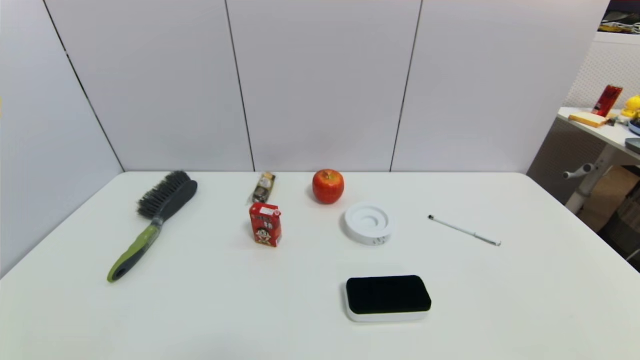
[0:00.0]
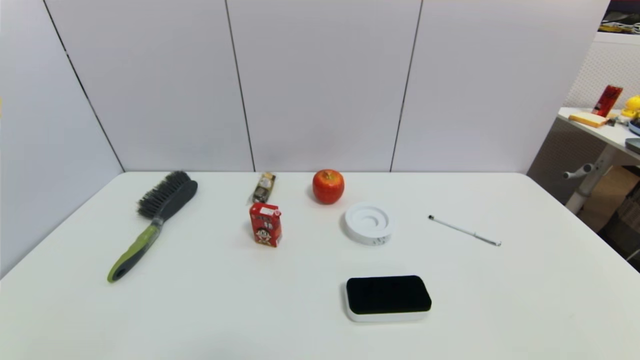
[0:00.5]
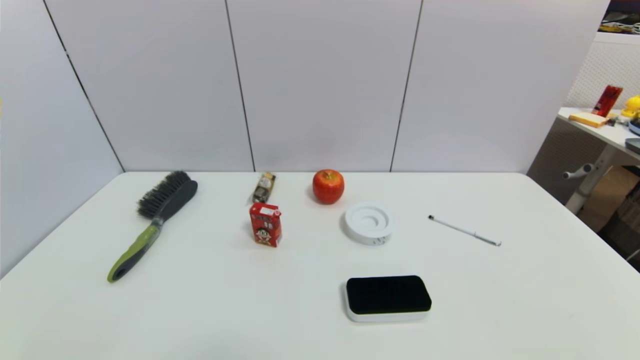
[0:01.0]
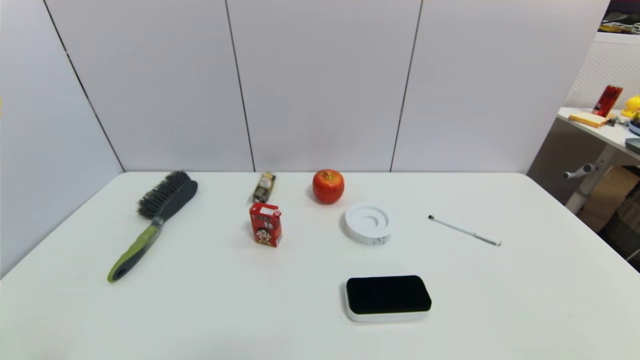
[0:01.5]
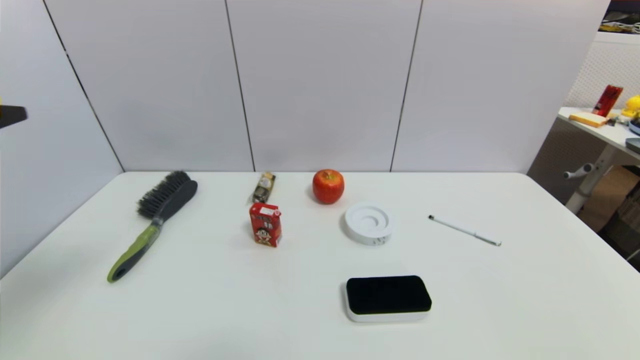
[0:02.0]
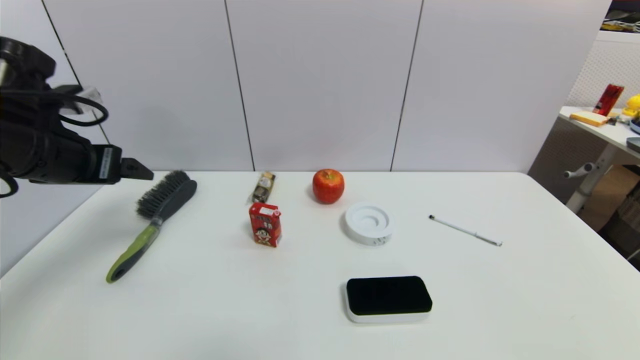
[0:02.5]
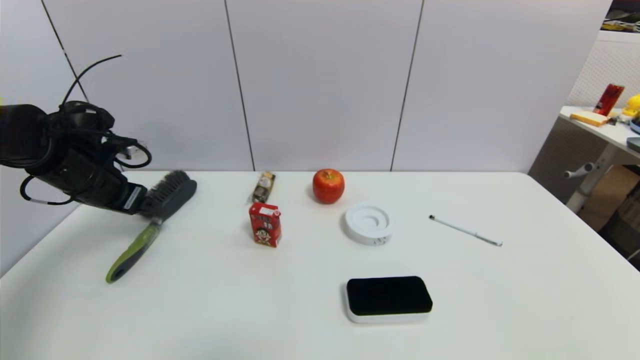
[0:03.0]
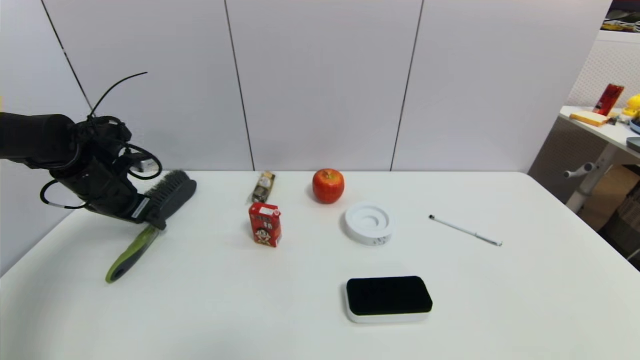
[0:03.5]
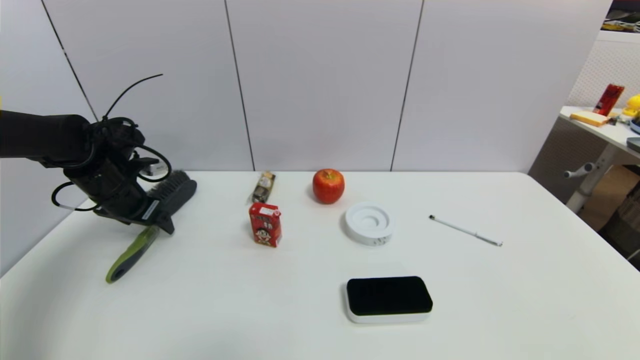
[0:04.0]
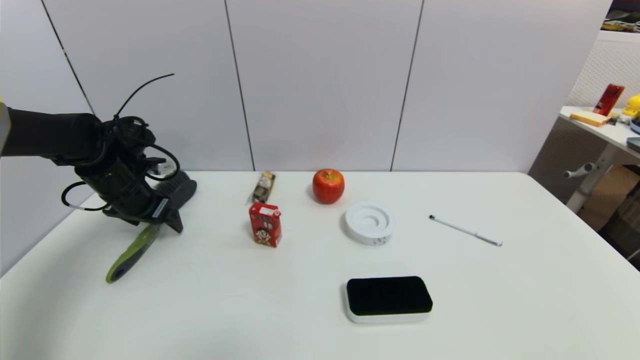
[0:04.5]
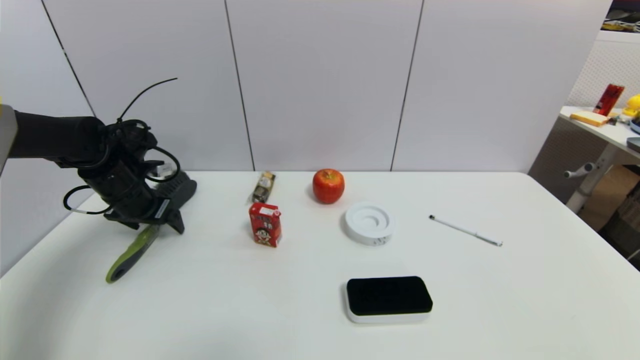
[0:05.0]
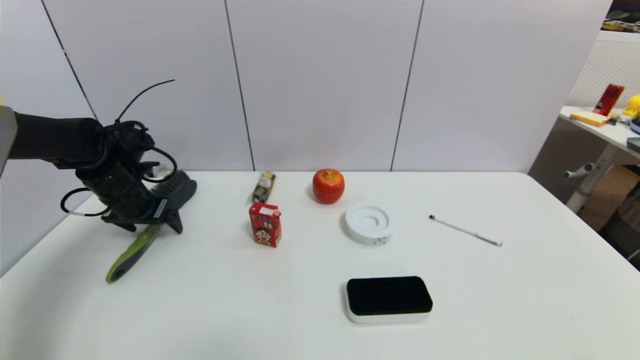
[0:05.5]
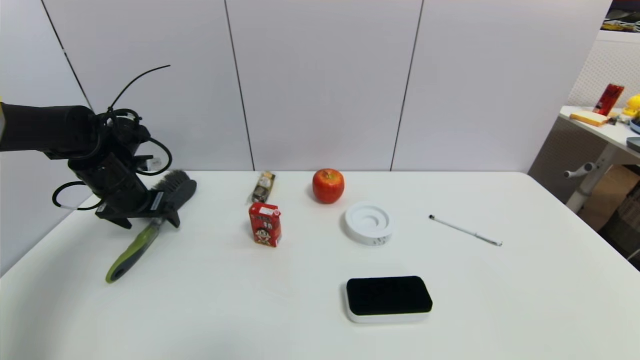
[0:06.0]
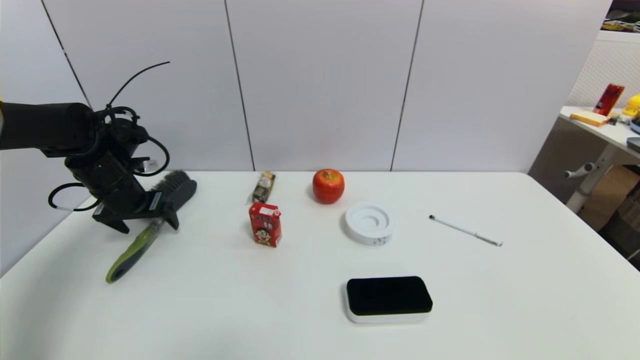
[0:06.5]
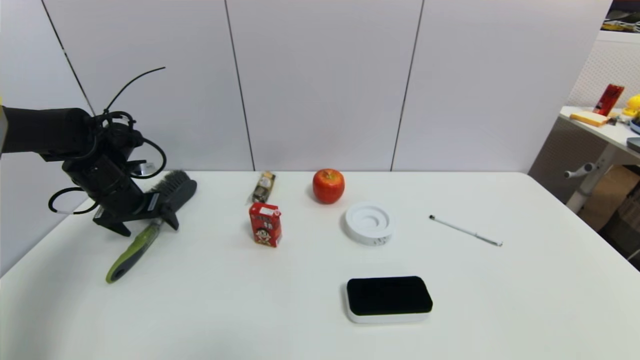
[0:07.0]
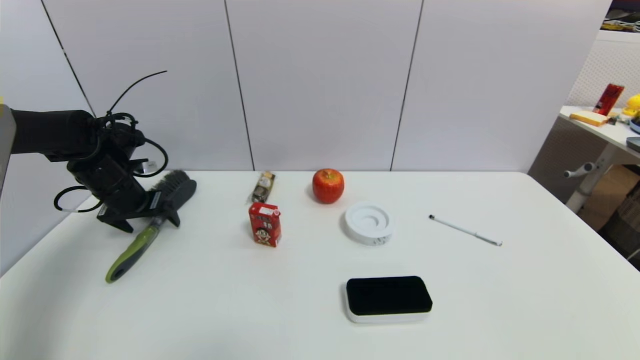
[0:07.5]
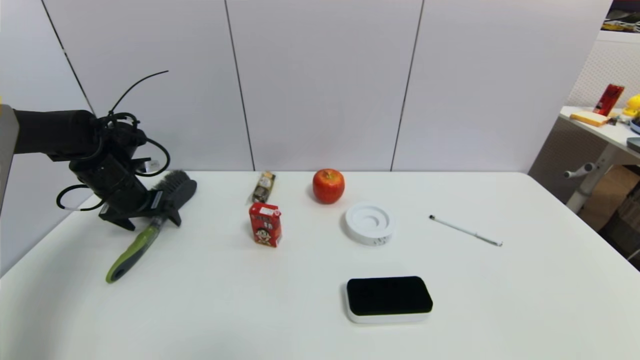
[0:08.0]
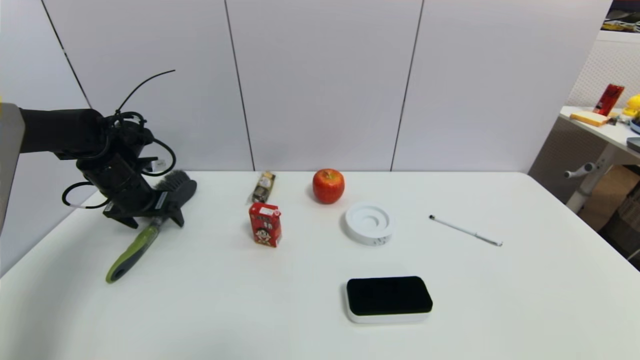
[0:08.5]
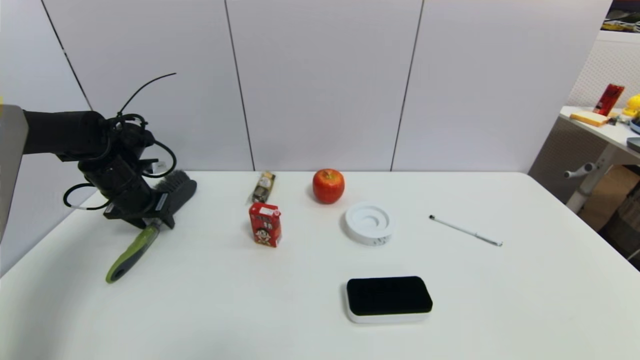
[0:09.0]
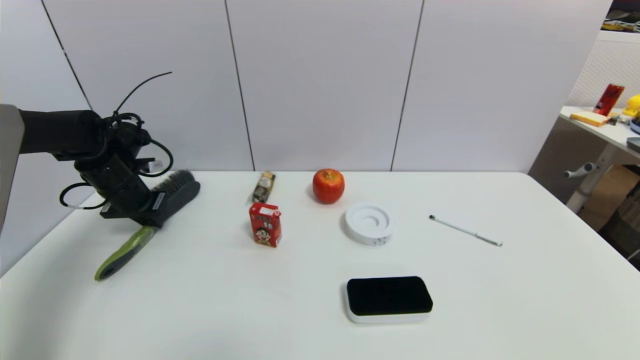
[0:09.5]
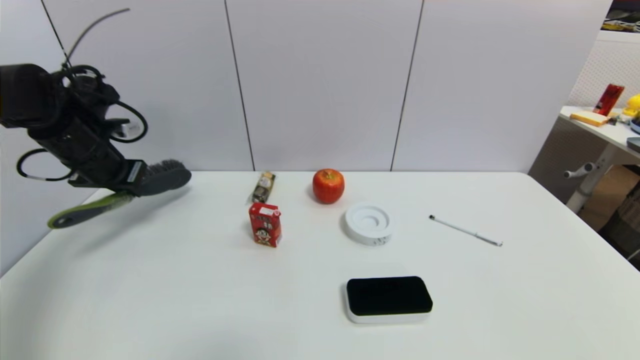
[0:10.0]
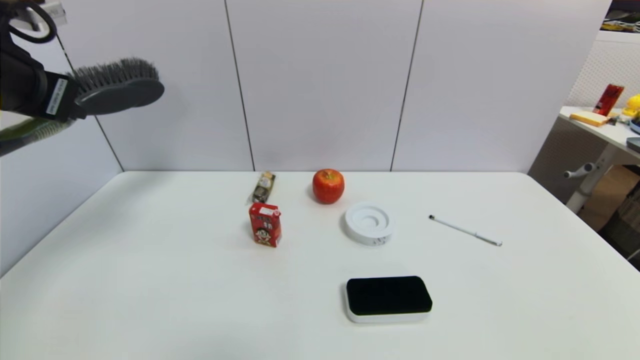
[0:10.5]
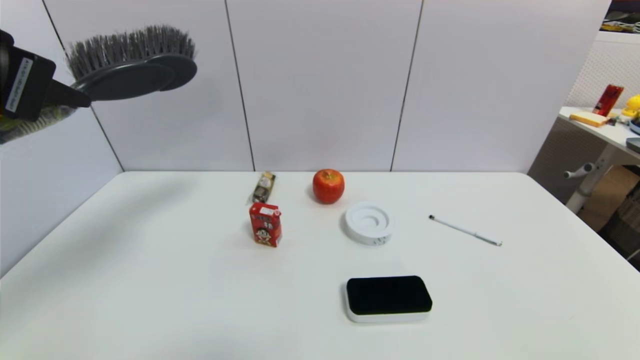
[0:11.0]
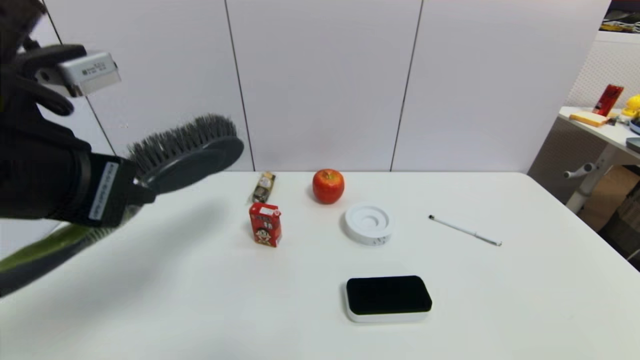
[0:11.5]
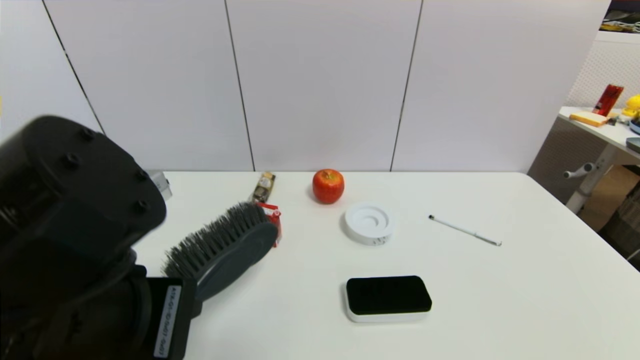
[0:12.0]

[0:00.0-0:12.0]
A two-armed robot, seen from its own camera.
Task of the whole recording: put the brush in the designated position.
Step, 0:00.0 to 0:09.5: Grasp the brush with left gripper.
0:00.0 to 0:02.0: The left gripper travels upward and forward by approximately 30 cm.
0:02.0 to 0:04.0: The left gripper travels forward and downward by approximately 30 cm.
0:04.0 to 0:08.0: The grippers make only small movements.
0:08.0 to 0:10.0: The left gripper is displaced upward by approximately 10 cm, and closes its fingers.
0:10.0 to 0:12.0: The left gripper is displaced backward and to the right by approximately 35 cm.

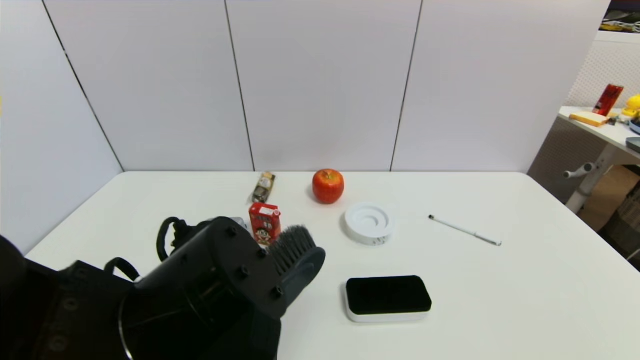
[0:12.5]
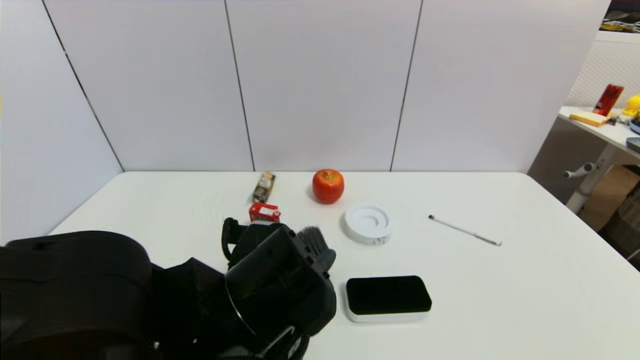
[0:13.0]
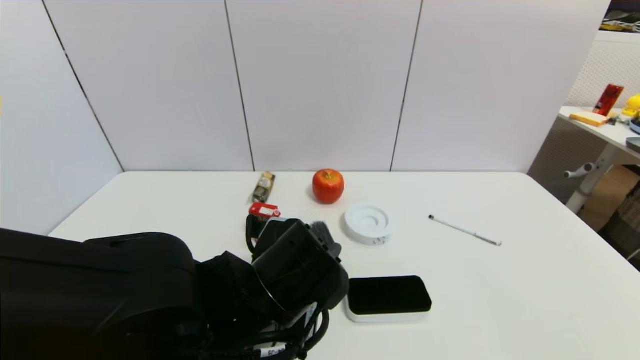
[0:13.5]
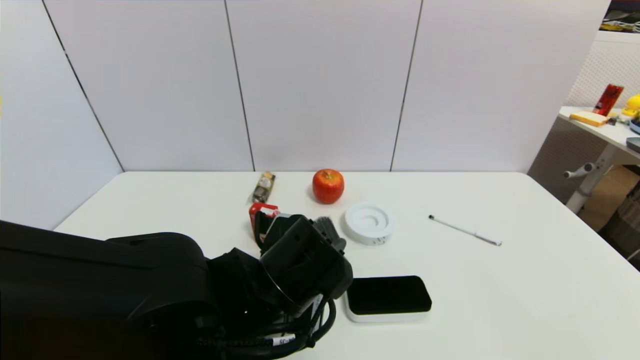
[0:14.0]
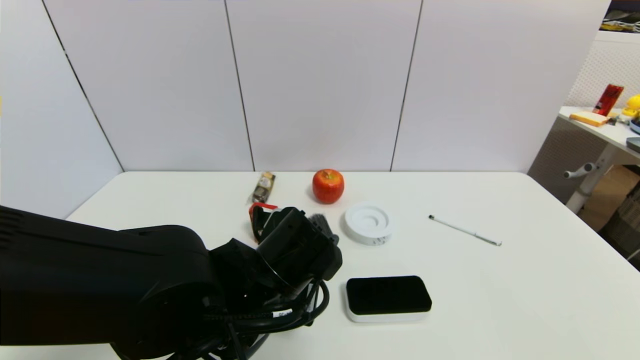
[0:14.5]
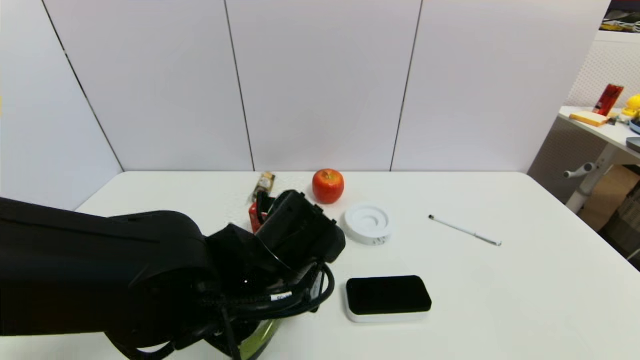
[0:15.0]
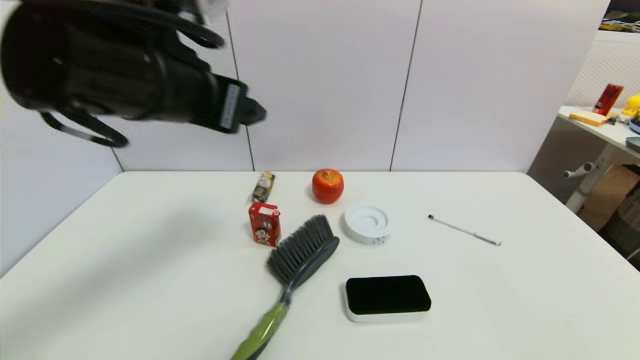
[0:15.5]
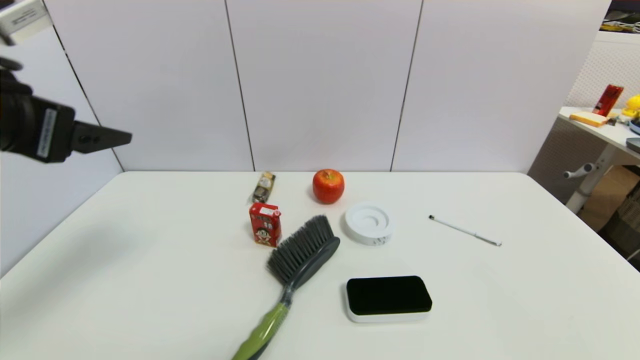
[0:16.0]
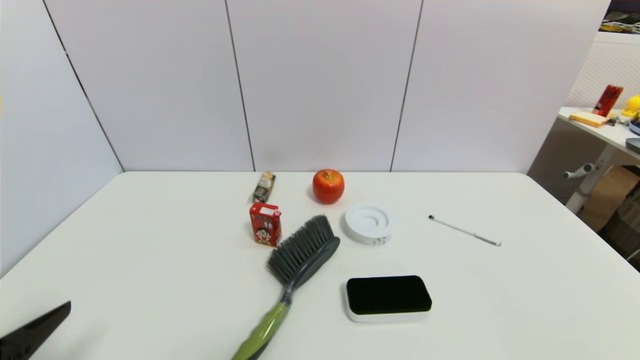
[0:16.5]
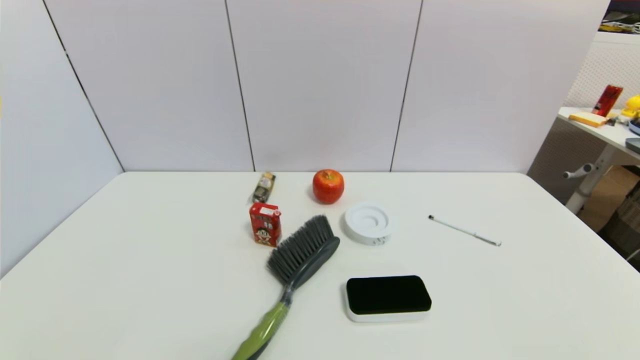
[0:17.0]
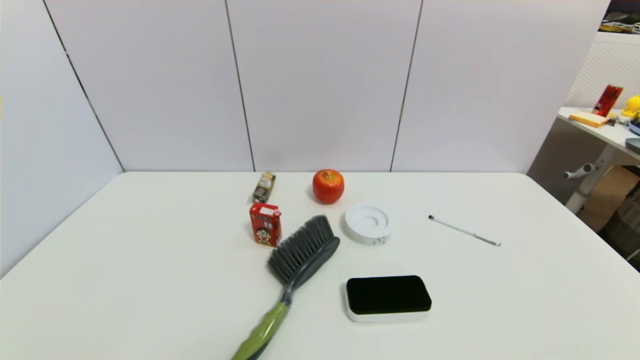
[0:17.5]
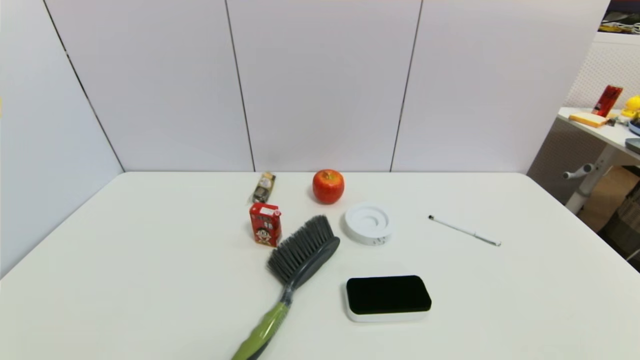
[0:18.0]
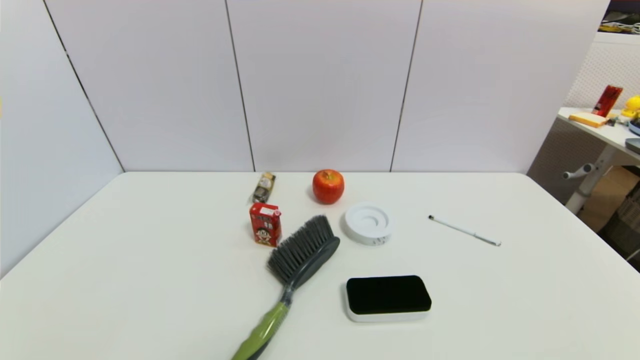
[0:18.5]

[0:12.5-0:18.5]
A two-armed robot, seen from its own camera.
Task of the whole recording: put the brush in the designated position.
Step, 0:12.5 to 0:14.5: Place the brush on the table with left gripper.
0:12.5 to 0:14.5: The left gripper shifts approximately 10 cm forward and downward.
0:14.5 to 0:16.5: The left gripper shifts roughly 30 cm to the left and backward, and opens its fingers.
0:16.5 to 0:18.5: The left gripper shifts approximately 15 cm downward and backward.
